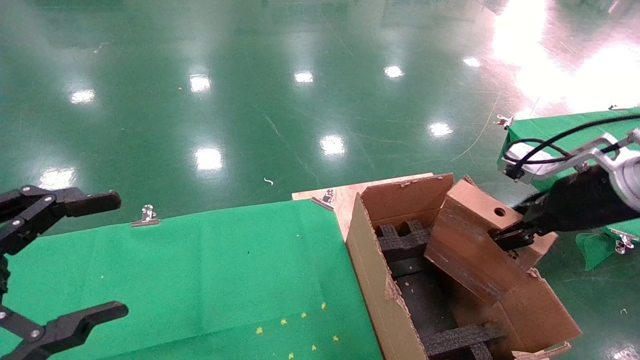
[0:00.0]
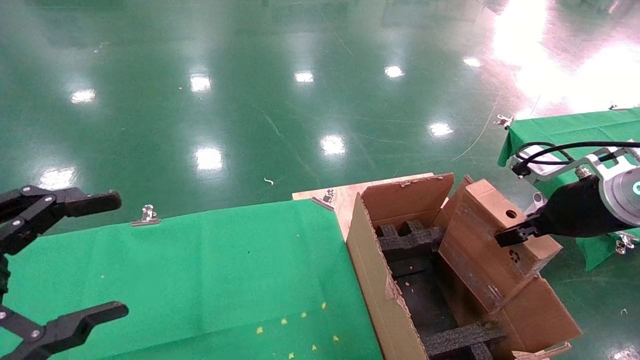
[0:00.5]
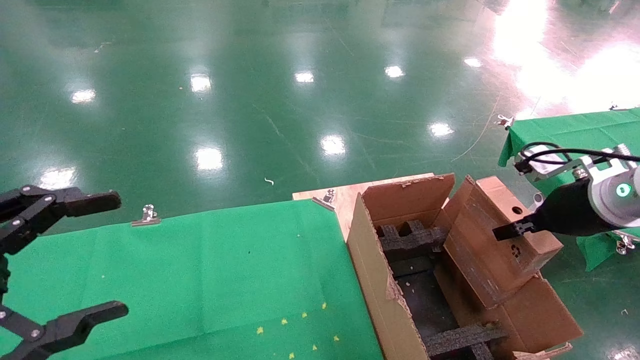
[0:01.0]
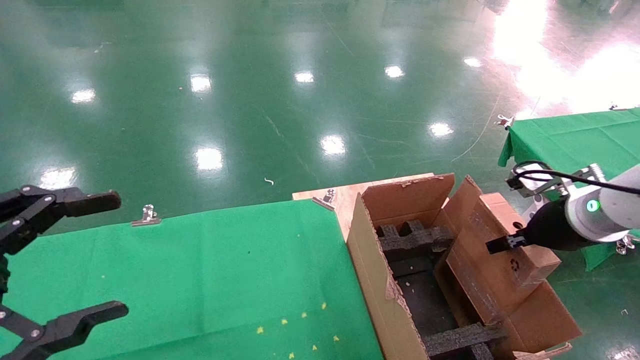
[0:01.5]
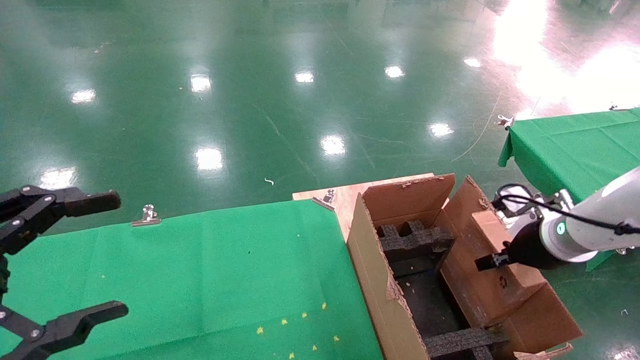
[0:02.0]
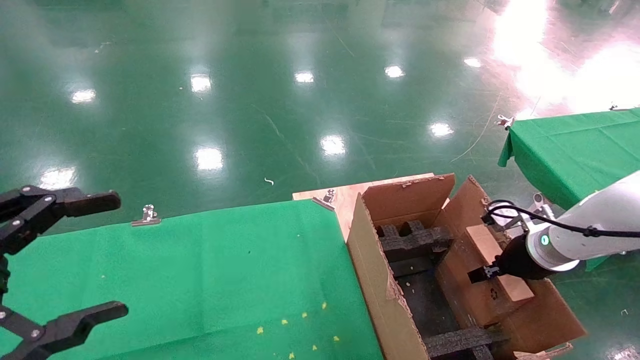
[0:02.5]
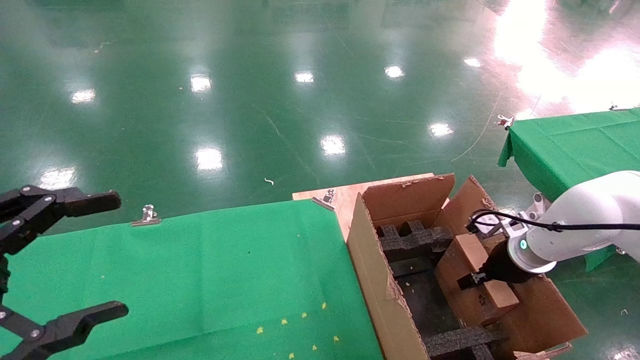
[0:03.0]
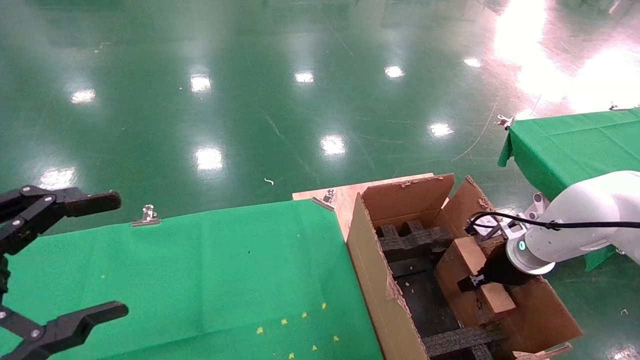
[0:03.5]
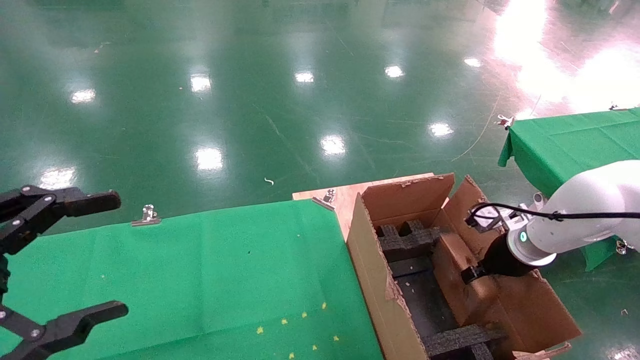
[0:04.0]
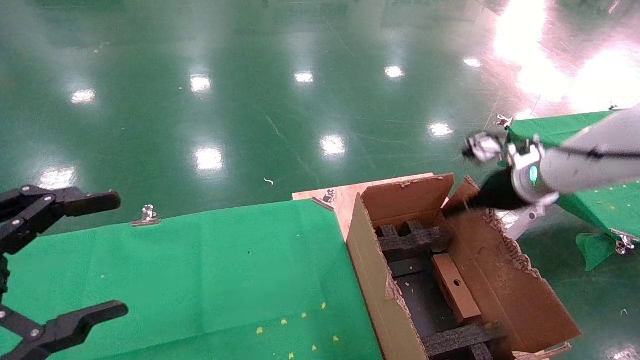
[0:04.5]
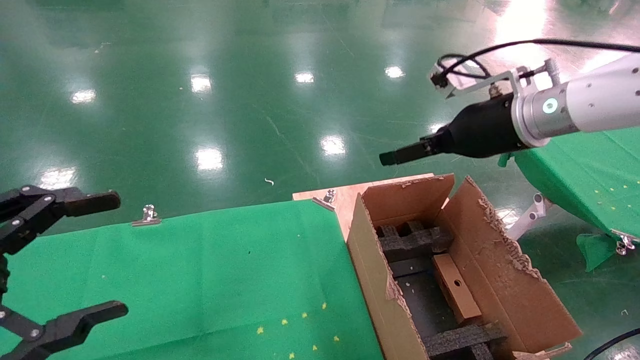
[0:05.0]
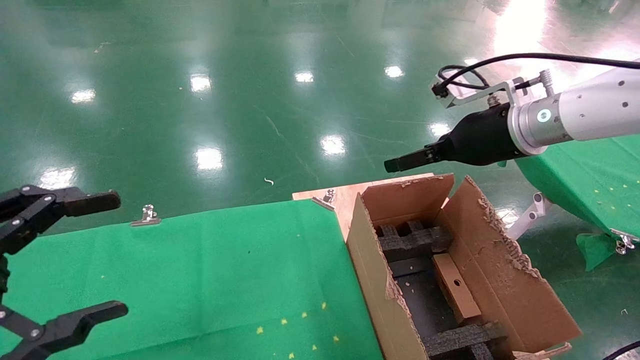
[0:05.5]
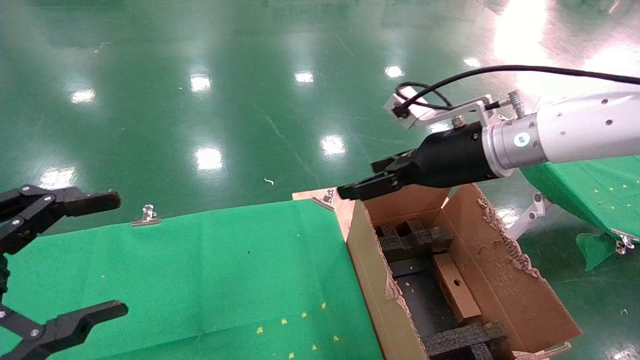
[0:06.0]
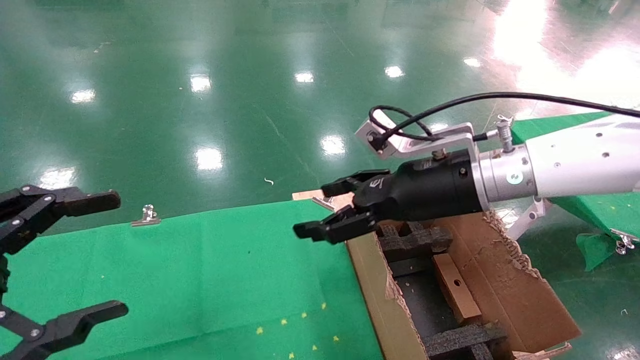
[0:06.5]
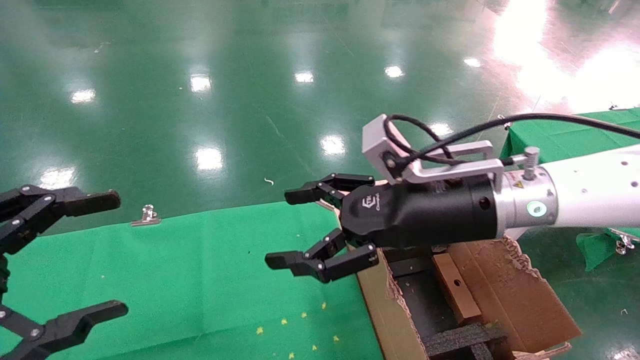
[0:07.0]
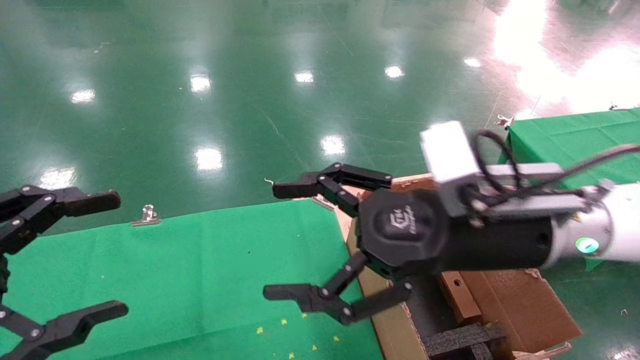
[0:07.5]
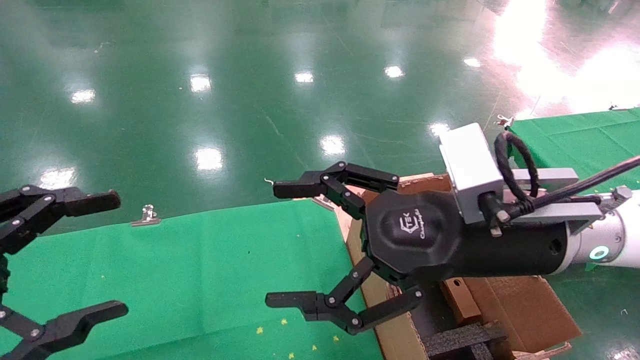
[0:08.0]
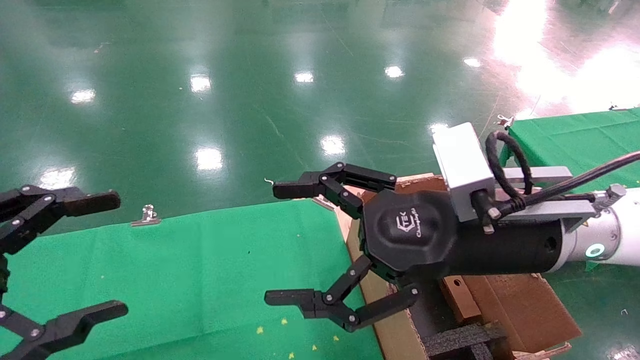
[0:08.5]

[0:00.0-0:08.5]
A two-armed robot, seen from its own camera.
Task of the whole recording: using a robotic arm to pick up a cardboard box and palace it the carton.
Step, 0:00.0 to 0:04.0: Place the mouse and the power cord paper box into the container.
0:00.0 to 0:02.0: The right gripper shifts approximately 15 cm downward and forward.
0:02.0 to 0:04.0: The right gripper shifts approximately 5 cm forward.
0:04.0 to 0:06.5: The right gripper shifts roughly 25 cm to the left and upward, and opens up.
0:06.5 to 0:08.5: The right gripper heads backward, covering some 10 cm.

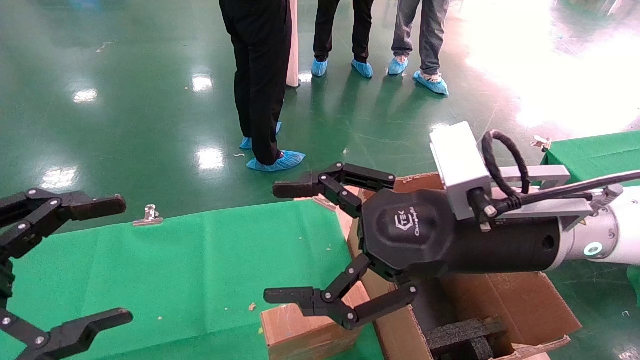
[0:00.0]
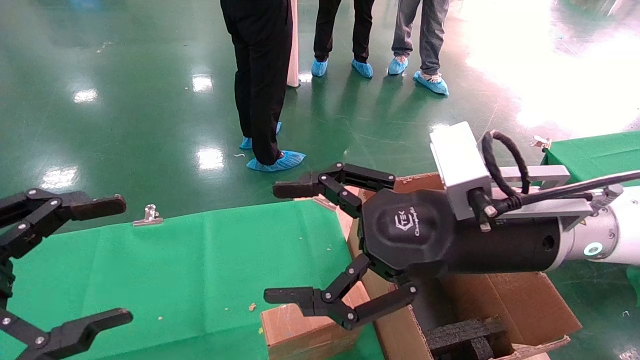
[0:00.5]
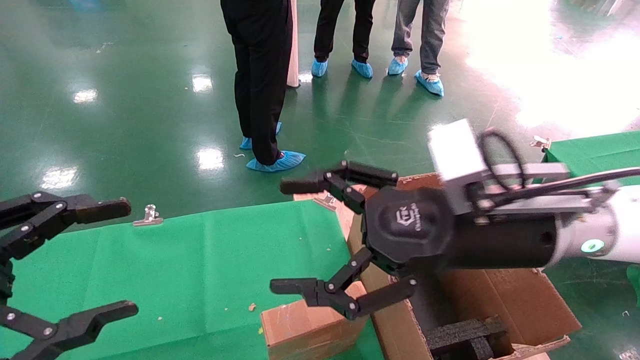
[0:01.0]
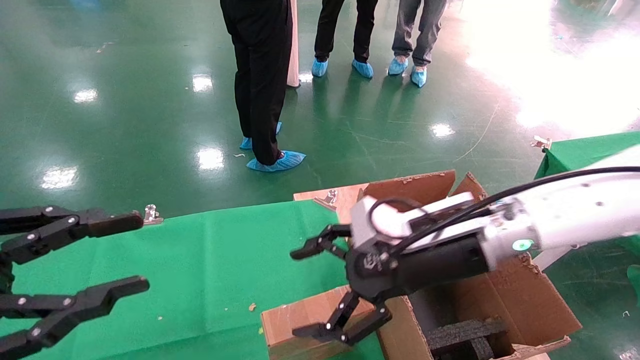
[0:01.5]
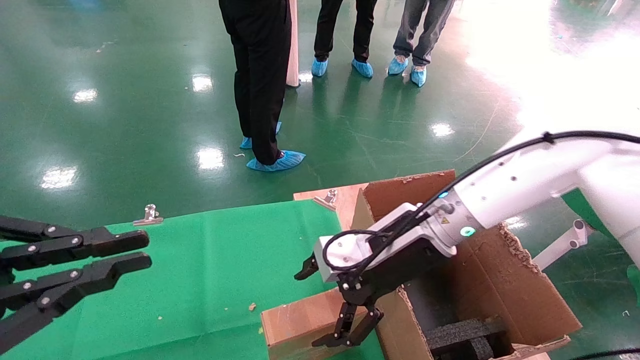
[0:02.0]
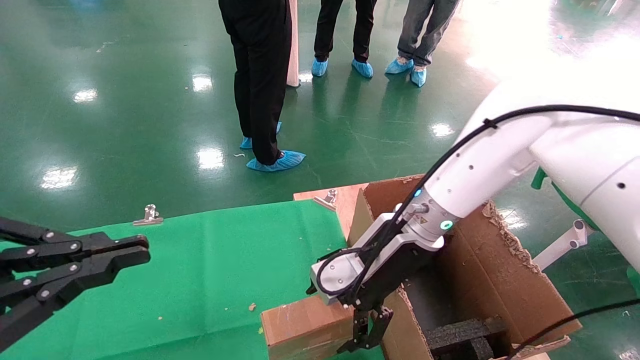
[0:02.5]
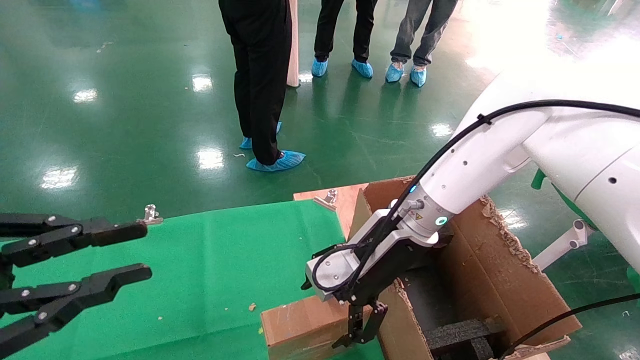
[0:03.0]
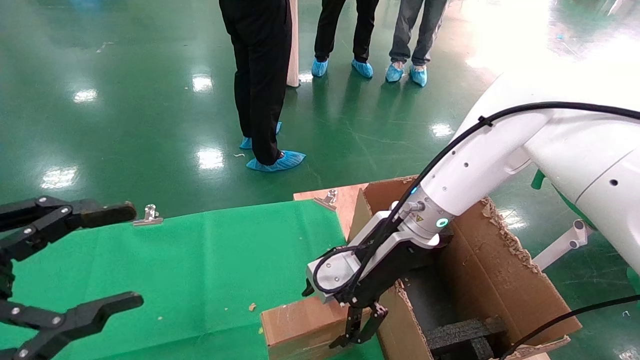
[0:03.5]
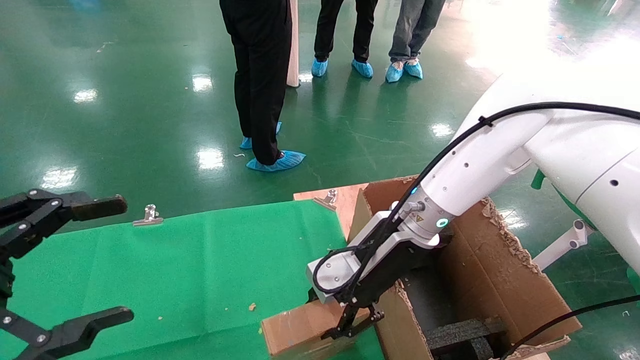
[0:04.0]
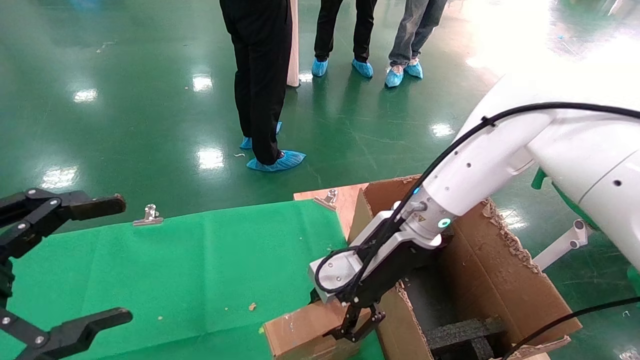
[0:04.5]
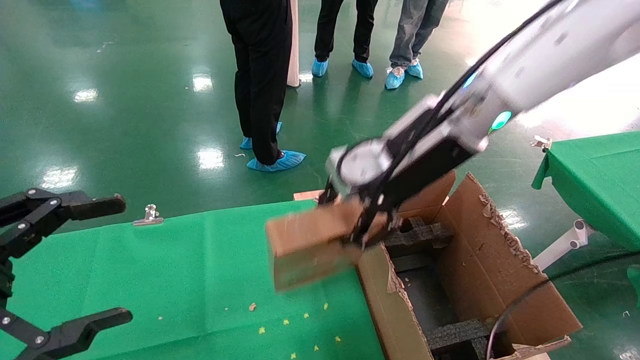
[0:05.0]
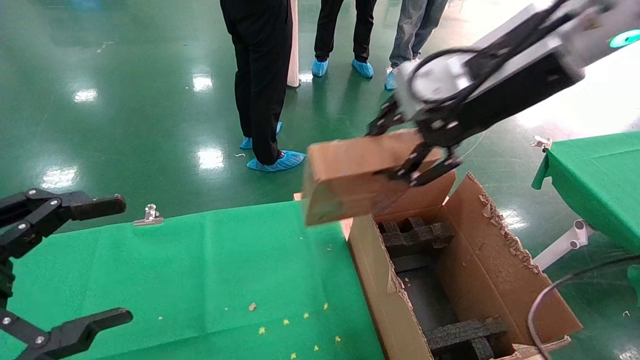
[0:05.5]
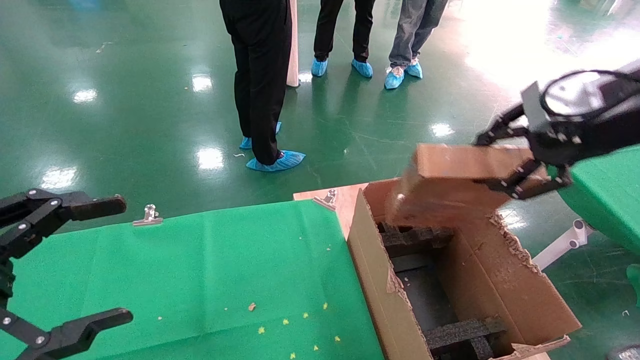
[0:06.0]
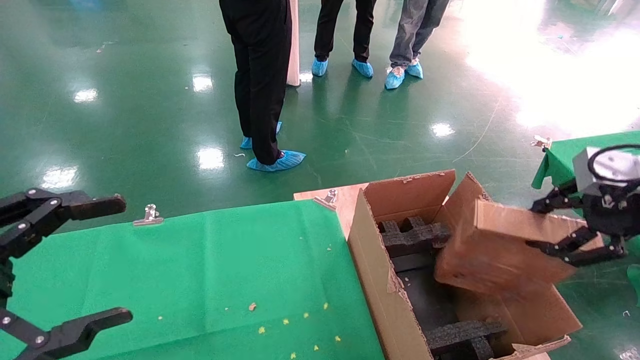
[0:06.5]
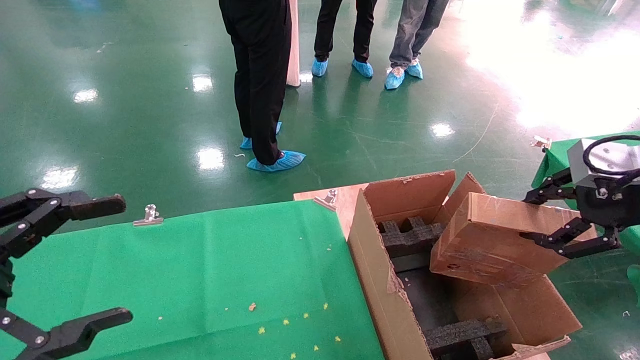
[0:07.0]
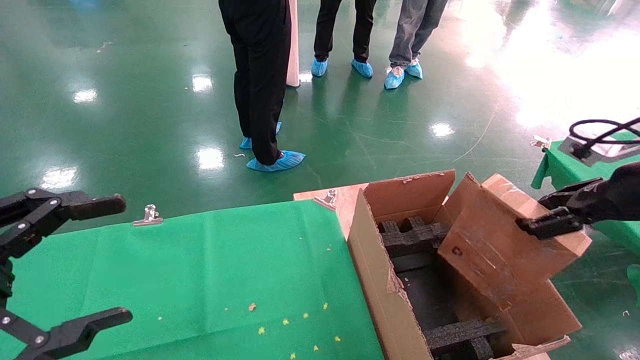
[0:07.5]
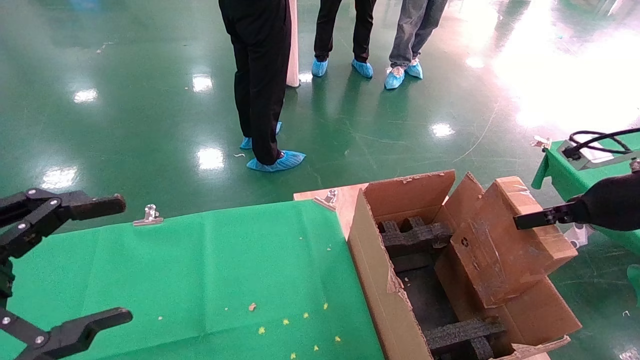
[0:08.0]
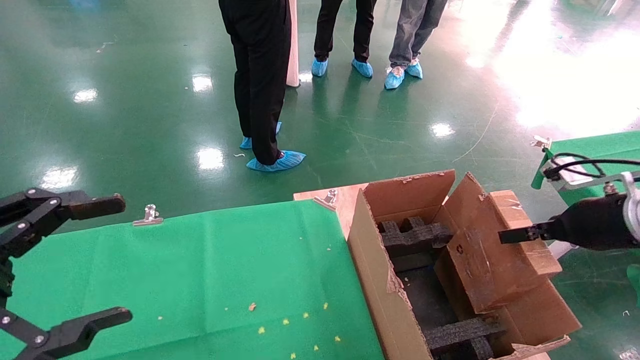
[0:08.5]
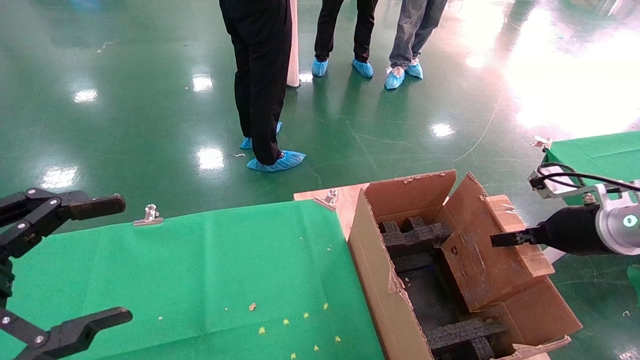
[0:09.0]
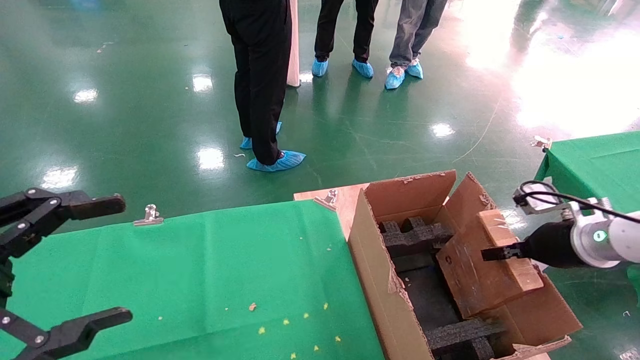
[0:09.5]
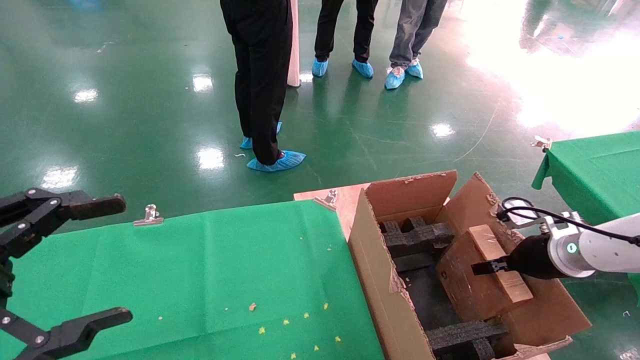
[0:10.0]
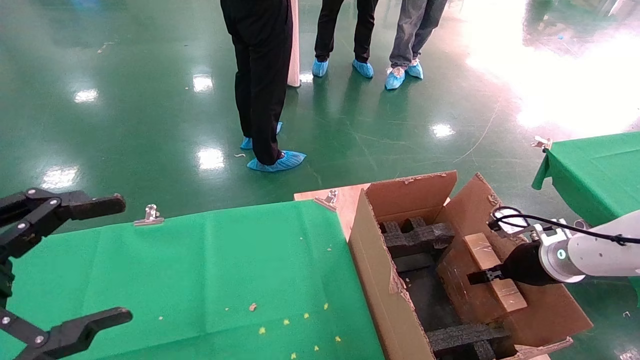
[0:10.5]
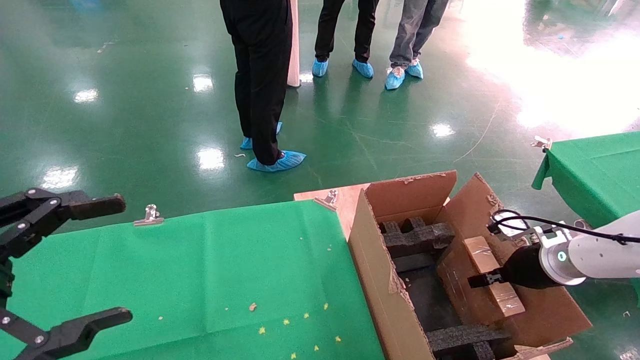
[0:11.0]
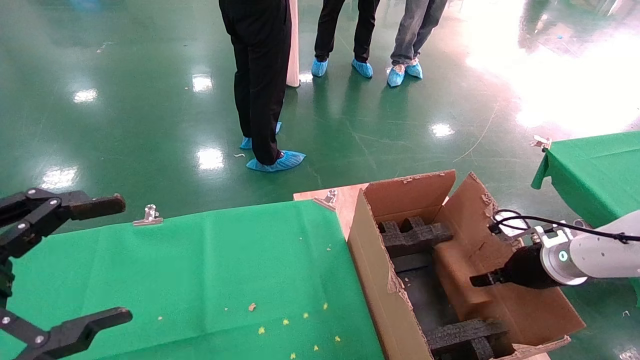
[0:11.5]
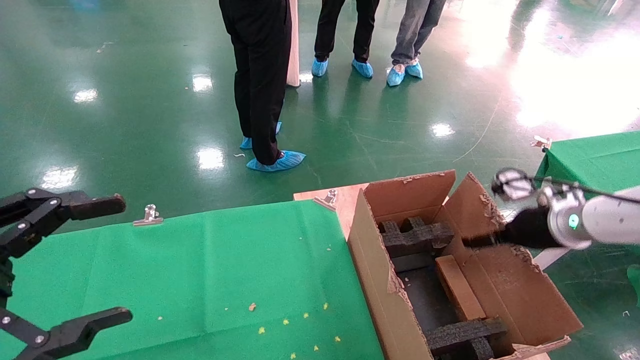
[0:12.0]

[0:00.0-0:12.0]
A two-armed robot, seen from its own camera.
Task of the whole recording: using a robotic arm to pick up a cardboard box and palace it the carton.
Step, 0:01.5 to 0:04.0: Pick up the mouse and the power cord paper box.
0:00.0 to 0:02.0: The right gripper heads forward and downward, covering approximately 10 cm, while the left gripper closes its fingers.
0:02.0 to 0:04.0: The right gripper closes; the left gripper opens.
0:04.0 to 0:06.0: The right gripper moves to the right, upward and backward, some 30 cm.
0:06.0 to 0:08.0: The right gripper travels downward and to the right by some 15 cm.
0:08.0 to 0:10.0: The right gripper moves downward and forward, roughly 15 cm.
0:10.0 to 0:12.0: The right gripper travels upward by about 5 cm, and opens its fingers.
